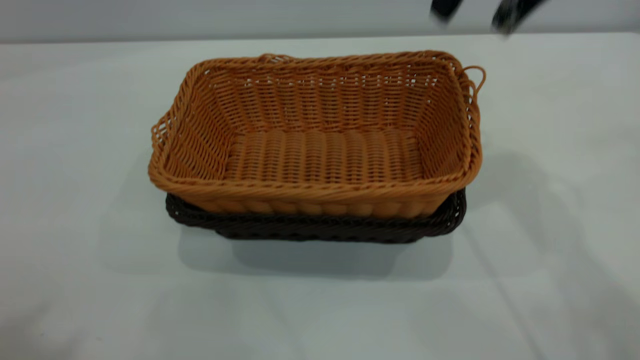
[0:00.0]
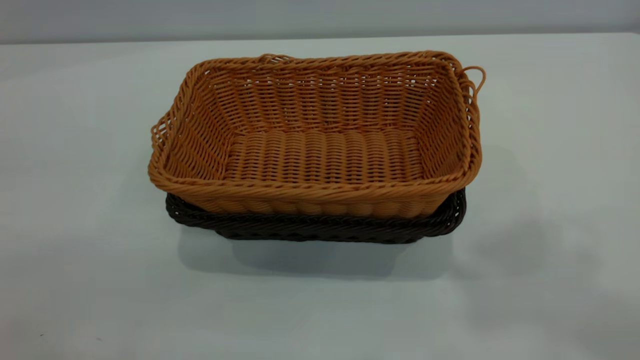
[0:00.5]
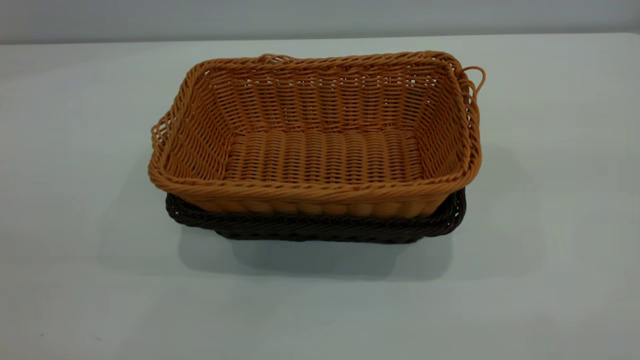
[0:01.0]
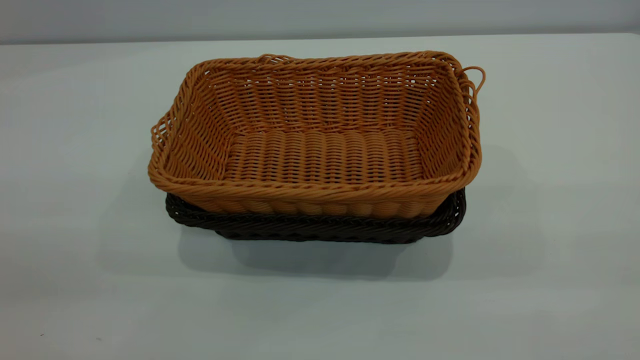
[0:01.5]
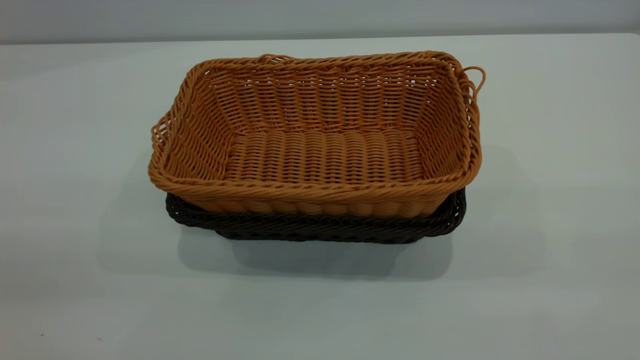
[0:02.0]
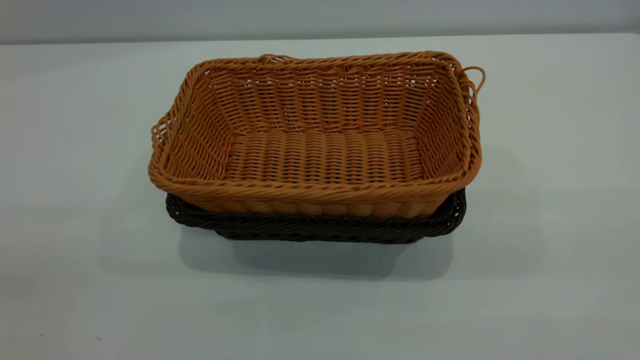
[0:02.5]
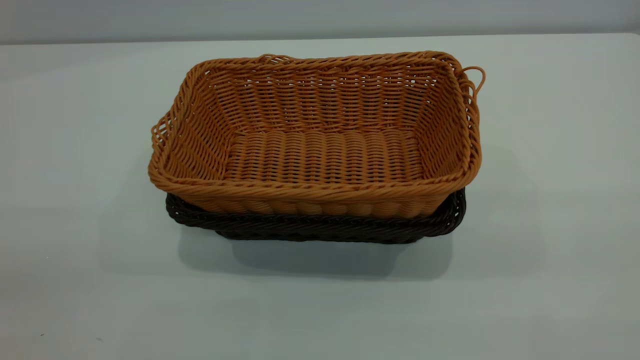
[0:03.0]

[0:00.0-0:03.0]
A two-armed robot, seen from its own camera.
Task of the whole recording: the left gripper grasp the black basket and place it in the center of the table, the right gripper grasp the brown basket and place it inside the black one.
0:00.0 to 0:01.5: The right gripper moves backward, about 35 cm.
